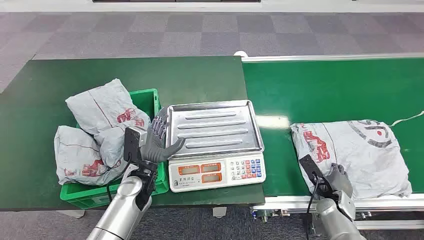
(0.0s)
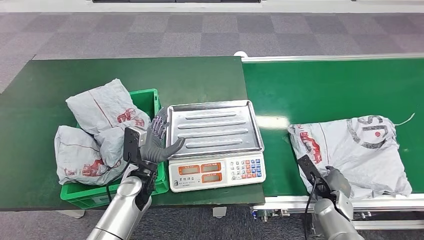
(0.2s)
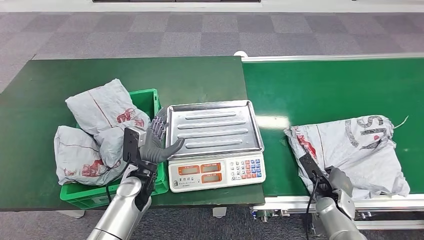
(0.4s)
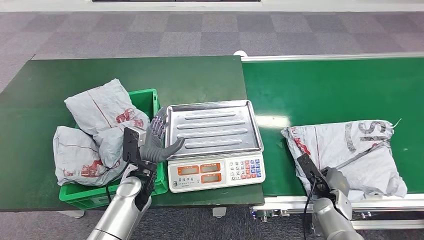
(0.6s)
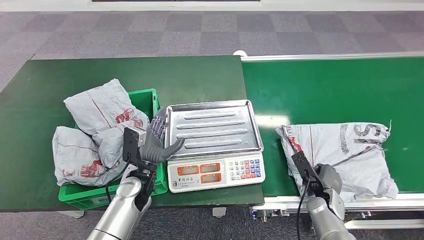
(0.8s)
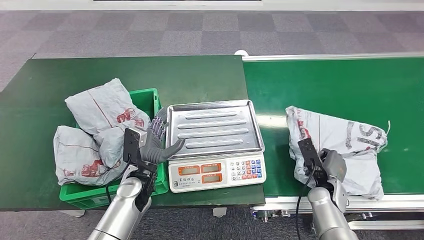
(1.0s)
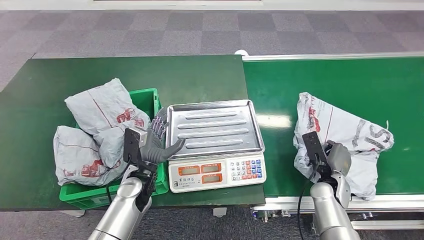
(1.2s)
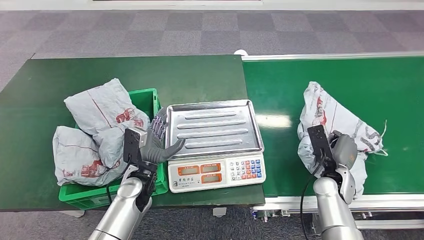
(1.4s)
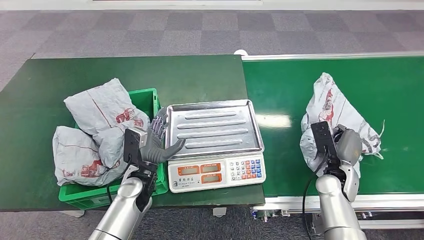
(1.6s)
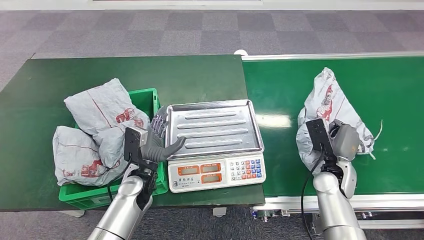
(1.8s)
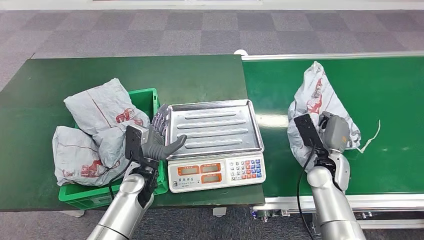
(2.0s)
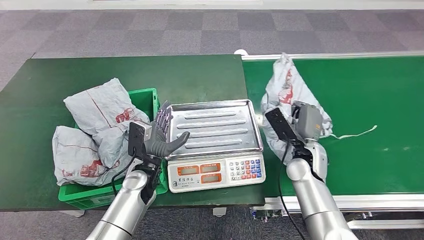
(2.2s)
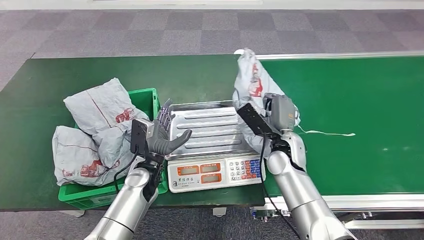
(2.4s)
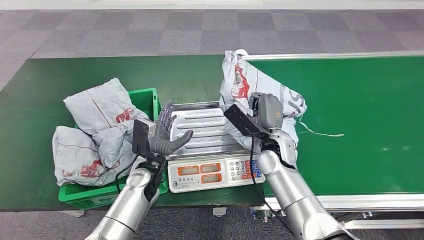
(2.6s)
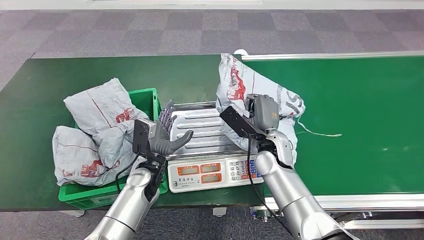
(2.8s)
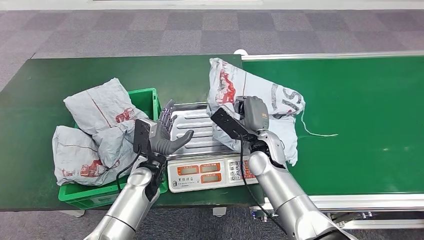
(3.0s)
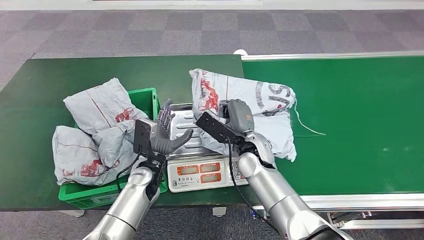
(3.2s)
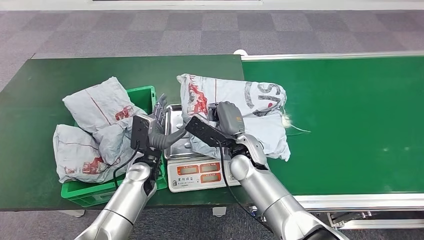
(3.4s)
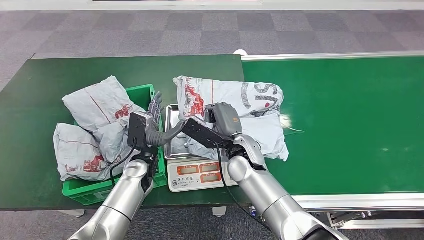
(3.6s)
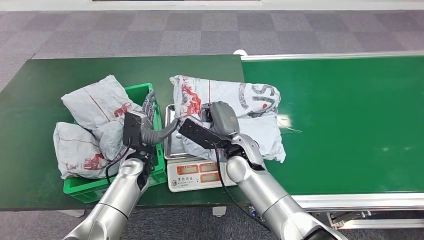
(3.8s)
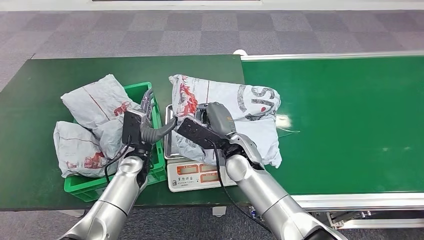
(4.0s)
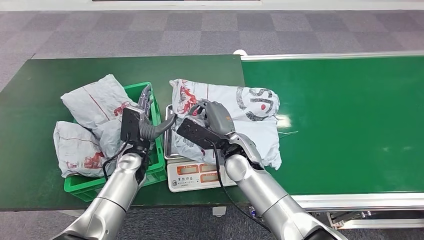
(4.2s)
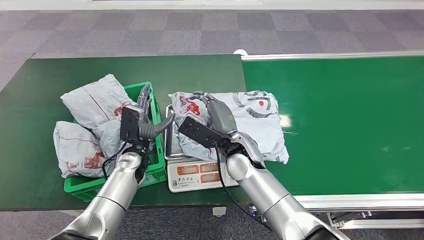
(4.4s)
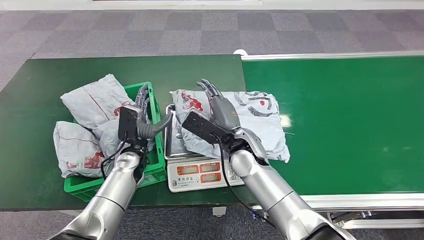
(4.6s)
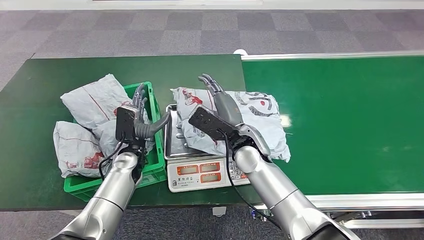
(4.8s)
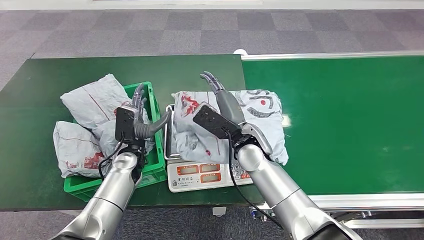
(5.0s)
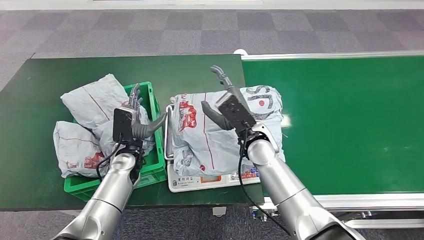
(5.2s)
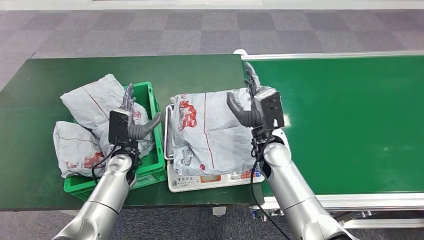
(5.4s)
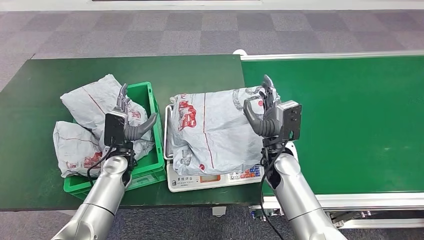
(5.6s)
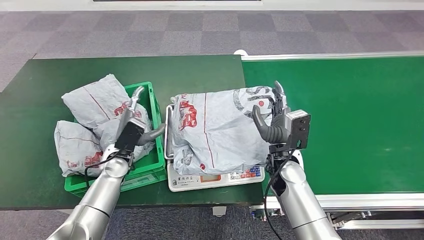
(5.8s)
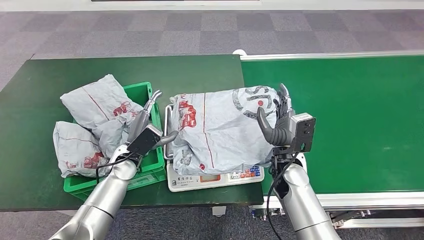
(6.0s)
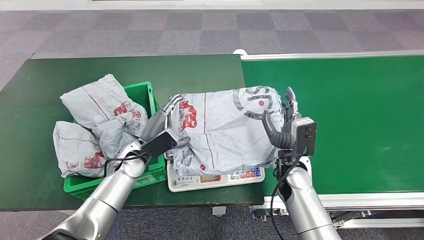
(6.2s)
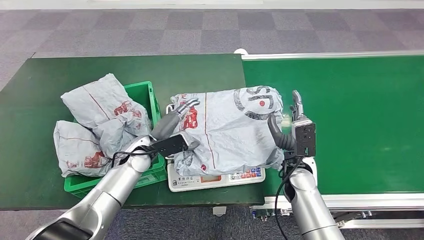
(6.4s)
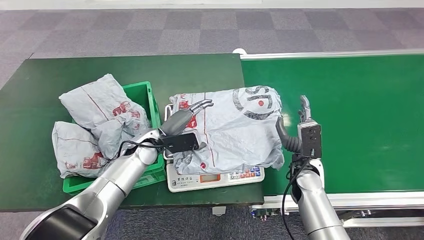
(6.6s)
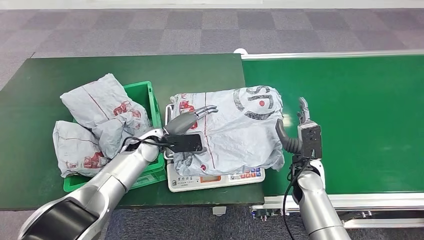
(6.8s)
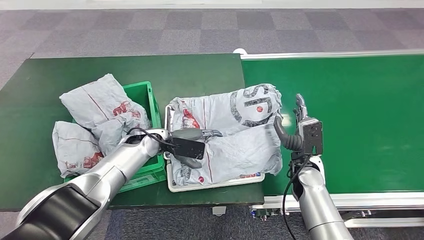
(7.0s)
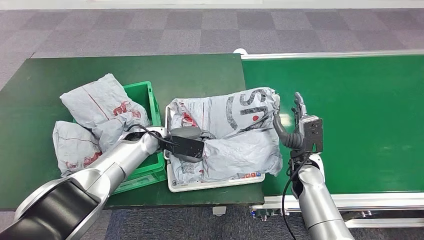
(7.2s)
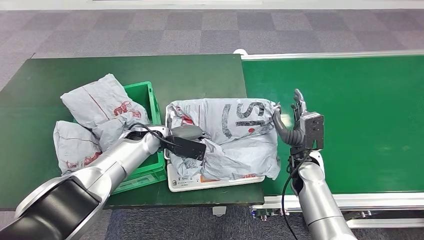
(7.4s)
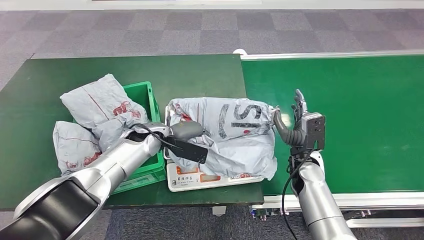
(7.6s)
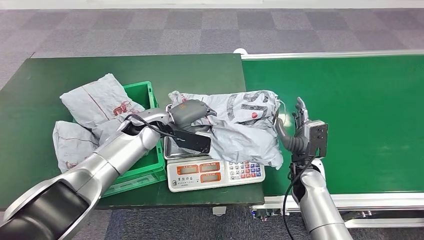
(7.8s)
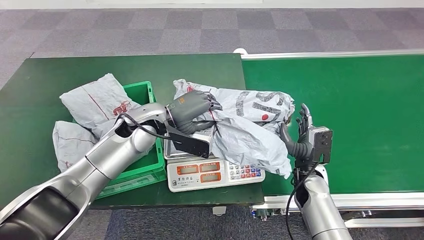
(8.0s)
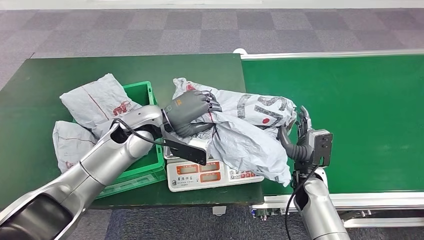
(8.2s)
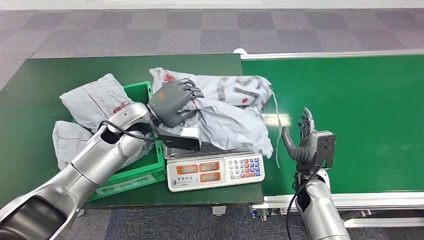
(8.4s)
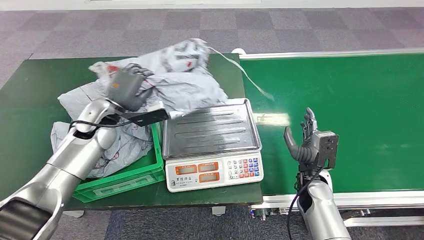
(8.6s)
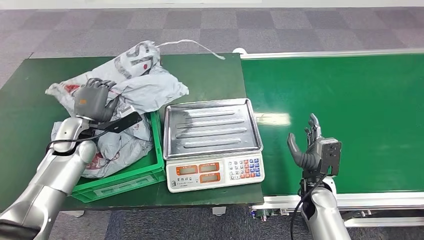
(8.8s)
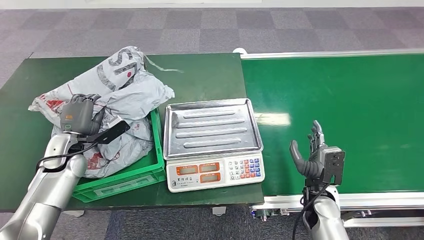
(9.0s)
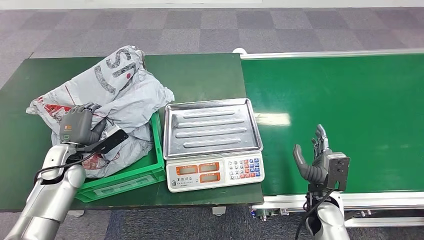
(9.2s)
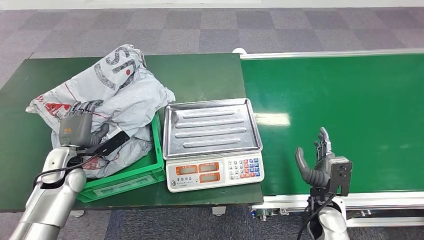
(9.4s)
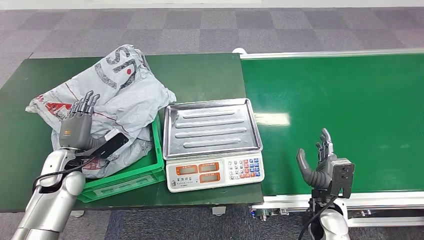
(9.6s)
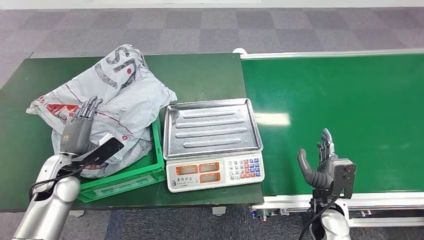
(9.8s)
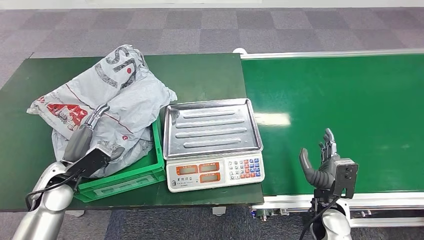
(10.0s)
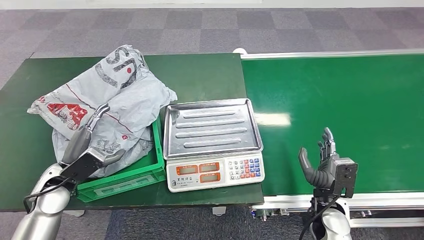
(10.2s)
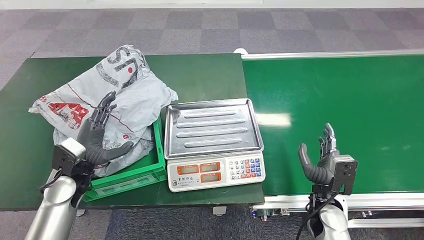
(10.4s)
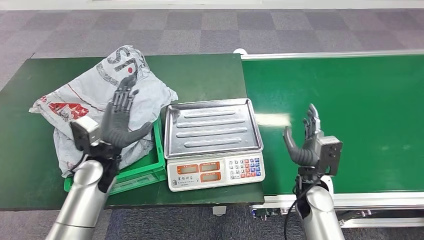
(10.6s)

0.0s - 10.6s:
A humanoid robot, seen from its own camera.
Step, 0.0s - 1.8s: Pick up the package from the conveyor belt.
Step, 2.0s - 5.0s: Place the package onto the inbound machine.
Step, 5.2s - 8.4s: Pick up the package from the inbound machine.
Step, 8.6s - 10.6s: Place the package into the parcel locker.
